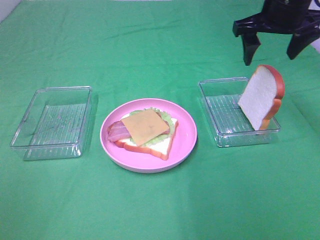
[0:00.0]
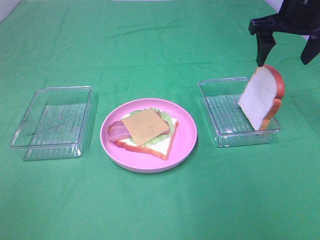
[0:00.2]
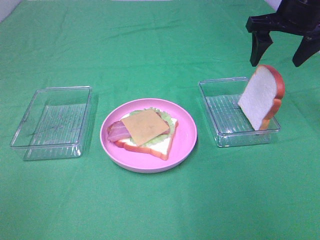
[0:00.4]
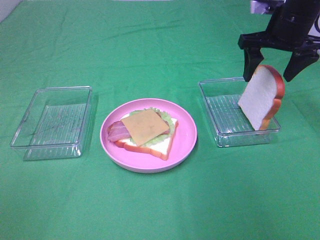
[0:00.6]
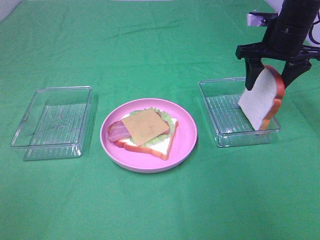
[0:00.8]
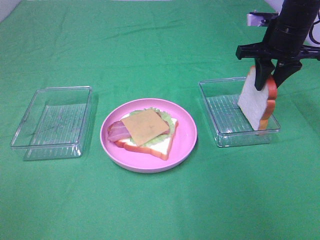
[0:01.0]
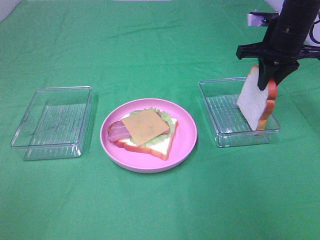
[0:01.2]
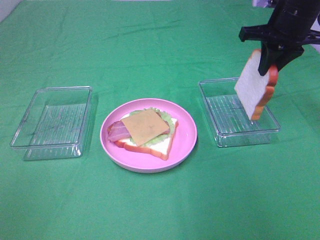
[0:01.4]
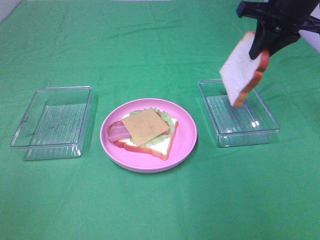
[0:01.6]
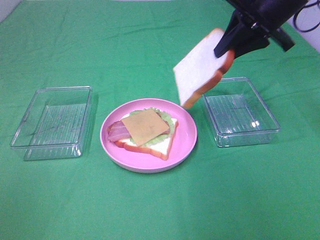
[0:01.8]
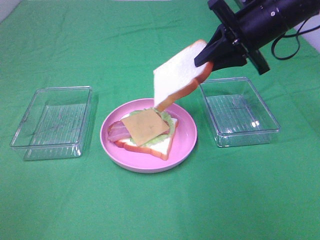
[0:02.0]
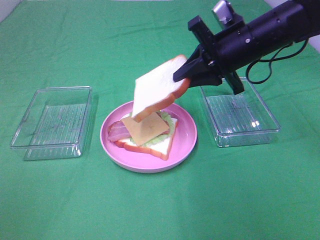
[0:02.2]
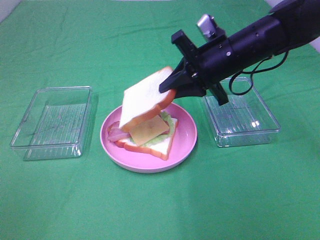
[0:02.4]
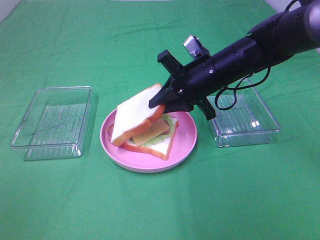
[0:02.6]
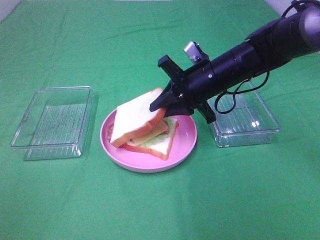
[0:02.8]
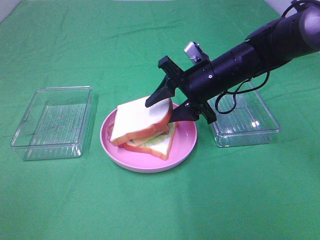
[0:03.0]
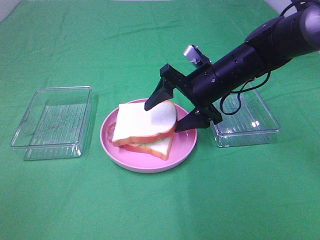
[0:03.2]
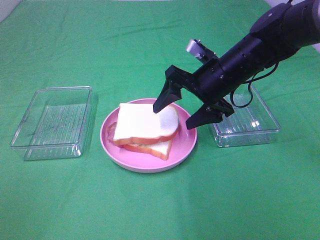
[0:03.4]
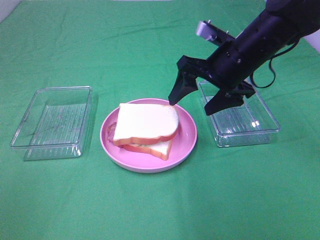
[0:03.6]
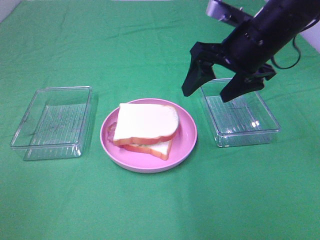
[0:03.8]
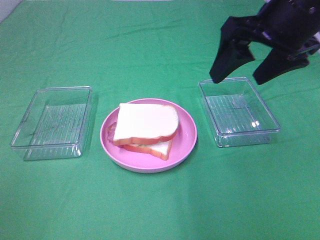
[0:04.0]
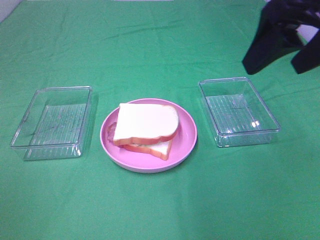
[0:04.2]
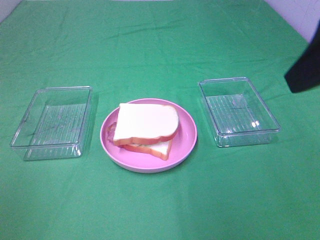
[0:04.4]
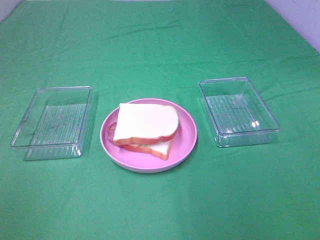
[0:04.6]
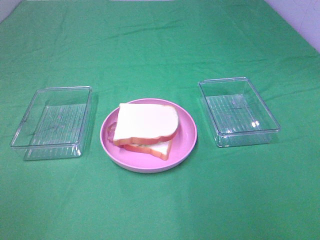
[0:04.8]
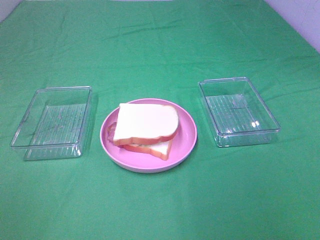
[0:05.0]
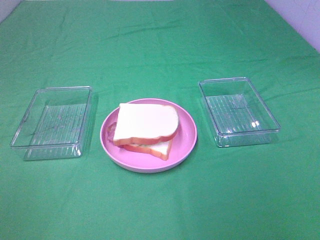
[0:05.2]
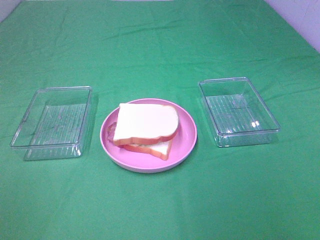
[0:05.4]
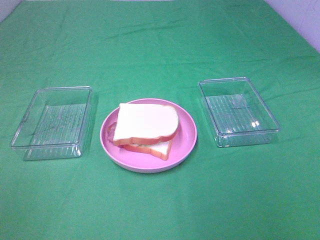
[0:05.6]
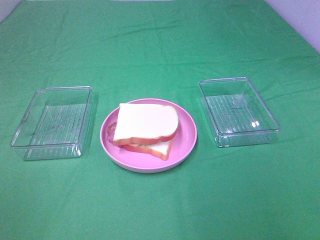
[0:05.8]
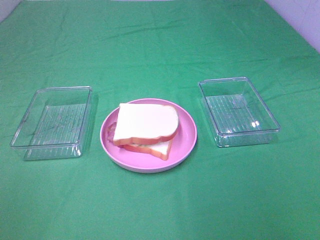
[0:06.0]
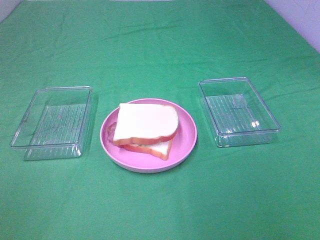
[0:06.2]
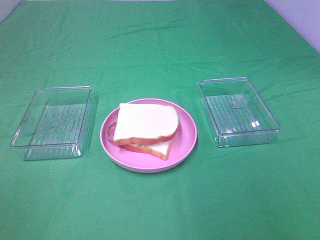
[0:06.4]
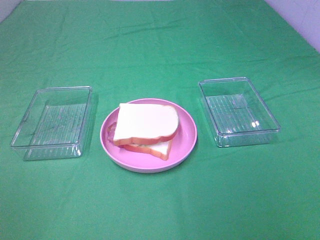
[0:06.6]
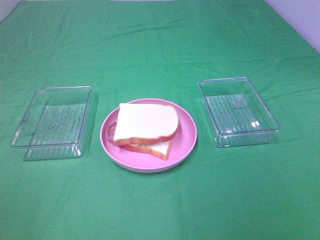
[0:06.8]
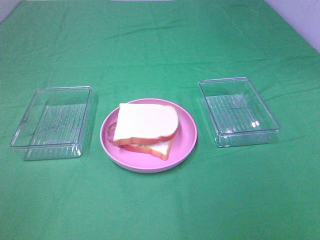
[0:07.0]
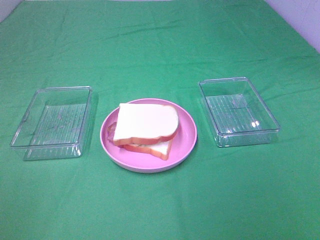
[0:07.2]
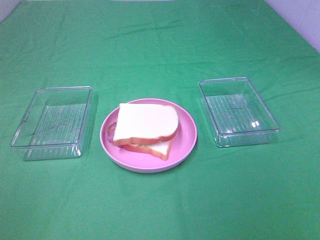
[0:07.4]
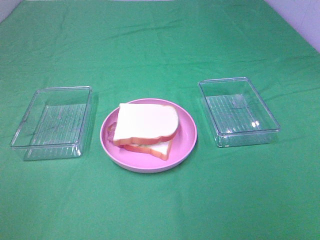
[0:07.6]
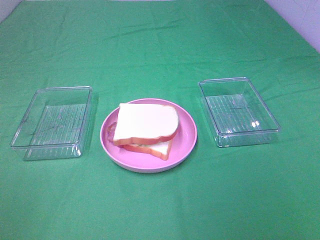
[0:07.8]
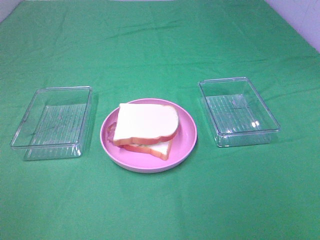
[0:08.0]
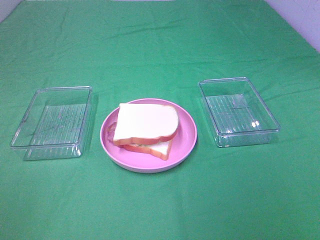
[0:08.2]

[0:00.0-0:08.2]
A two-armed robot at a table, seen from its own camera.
Task of the whole recording: Make sandwiches.
Step, 0:00.0 to 0:01.2: Right hand:grab the bread slice.
Step, 0:01.4 to 0:03.6: Right hand:place the bread slice on the cheese slice.
0:00.0 to 0:01.6: The right gripper closes up.
0:01.6 to 0:03.2: The right gripper shifts about 20 cm downward and to the left, and opens up.
0:03.2 to 0:05.0: The right gripper goes about 40 cm backward, to the right and upward.
